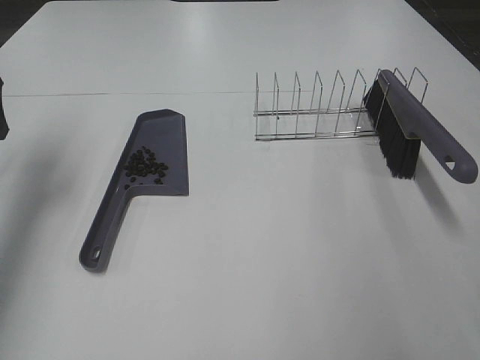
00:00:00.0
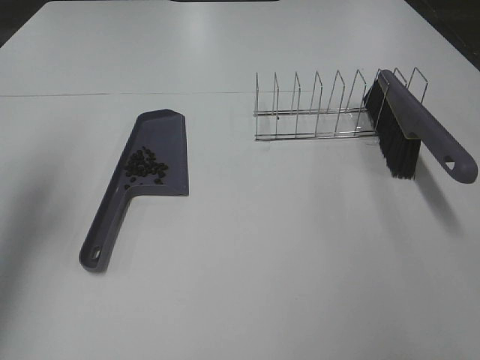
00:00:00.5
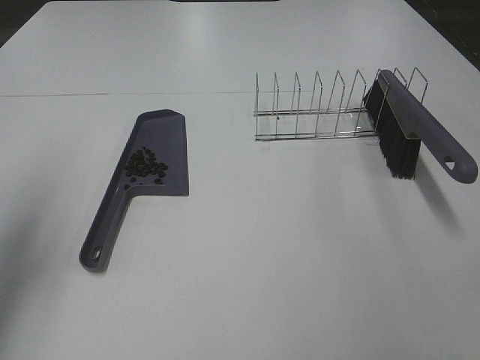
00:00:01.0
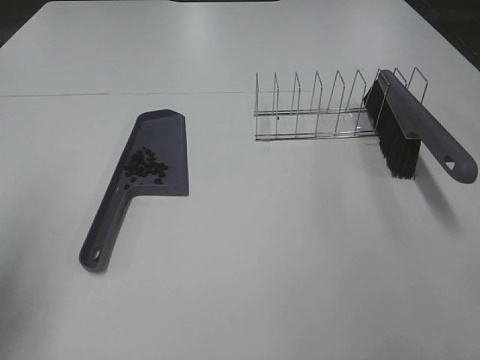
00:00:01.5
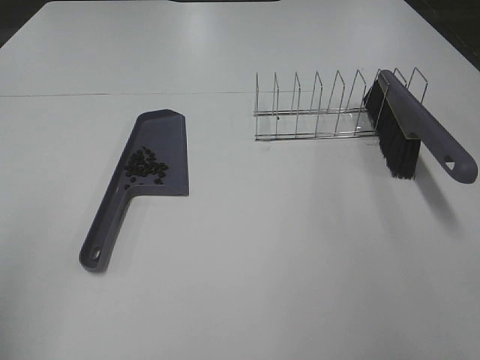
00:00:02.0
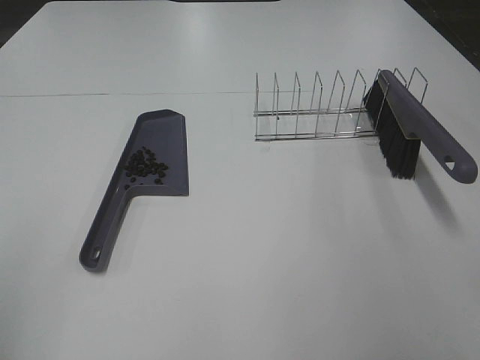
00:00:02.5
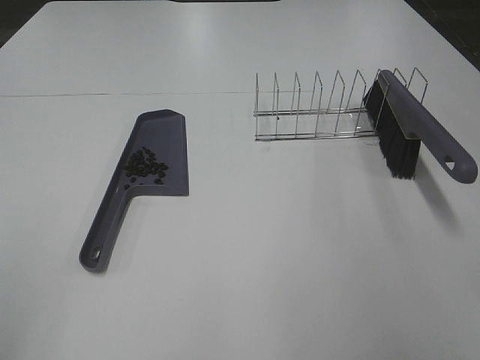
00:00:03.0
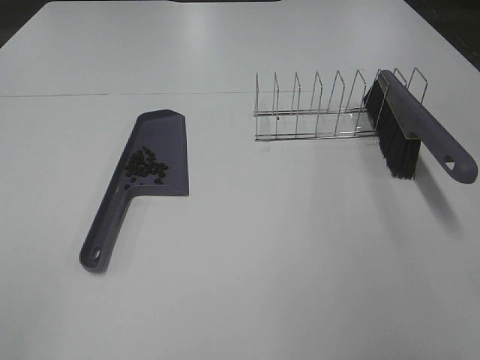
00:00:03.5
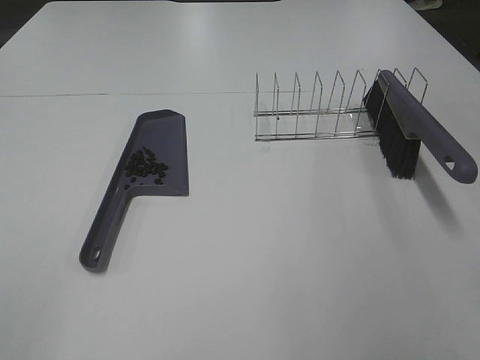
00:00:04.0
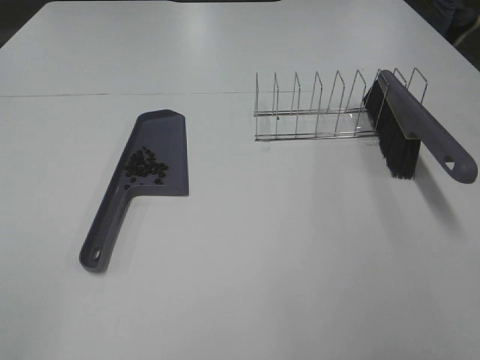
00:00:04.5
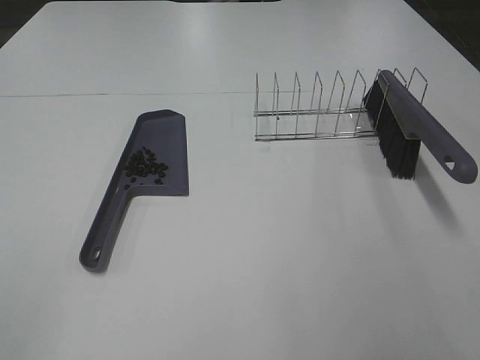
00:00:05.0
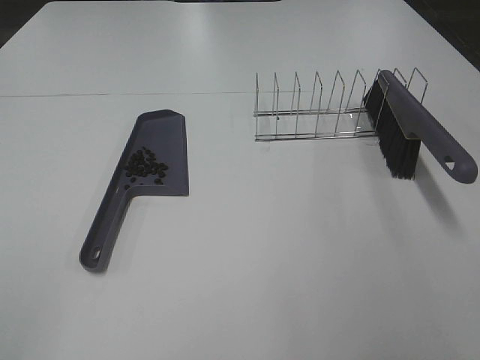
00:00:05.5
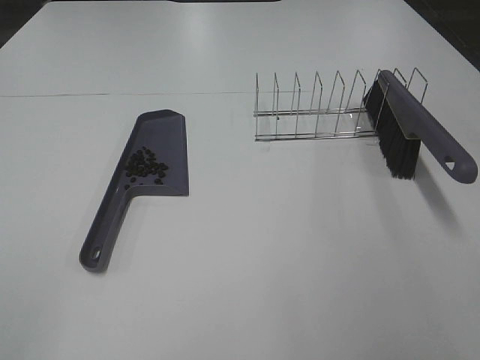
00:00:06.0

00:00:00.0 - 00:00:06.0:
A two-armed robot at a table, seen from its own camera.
Task of the whole recording: Sweep Coffee Bean.
00:00:00.0 - 00:00:02.0: The left gripper goes roughly 30 cm backward.
